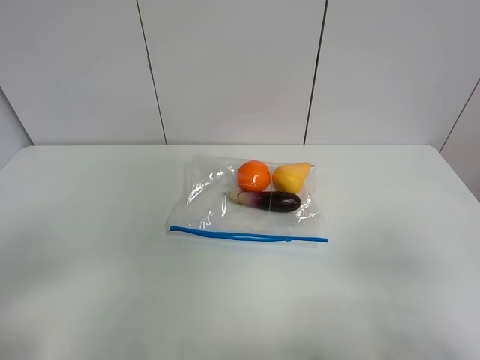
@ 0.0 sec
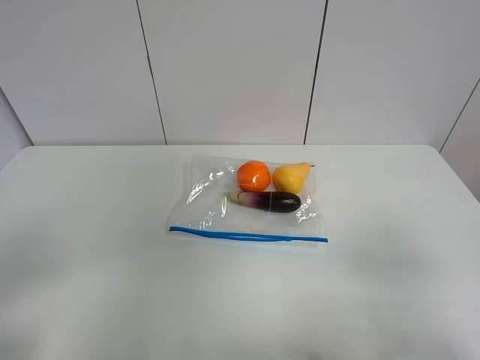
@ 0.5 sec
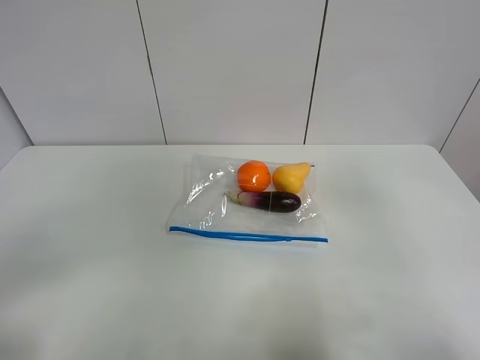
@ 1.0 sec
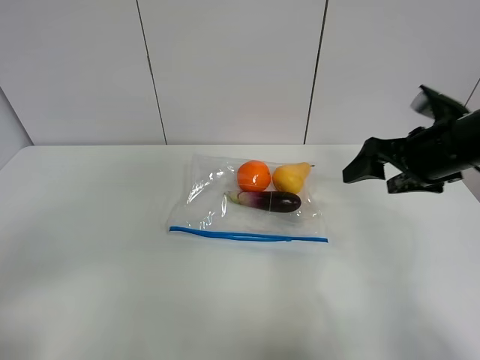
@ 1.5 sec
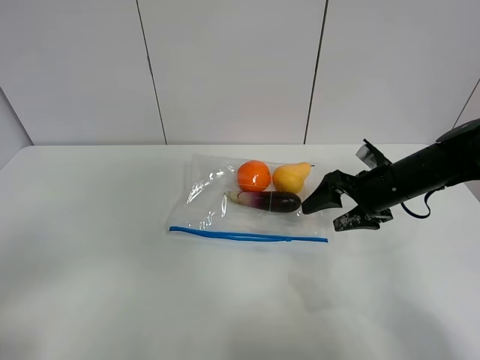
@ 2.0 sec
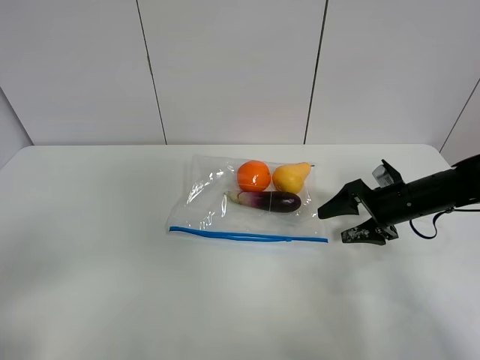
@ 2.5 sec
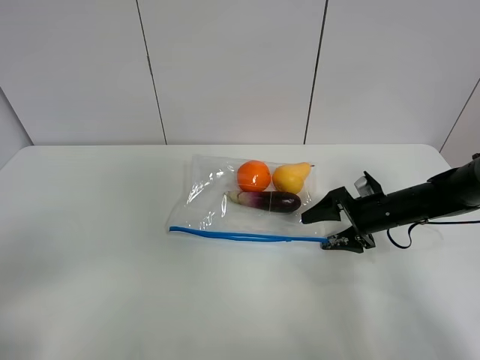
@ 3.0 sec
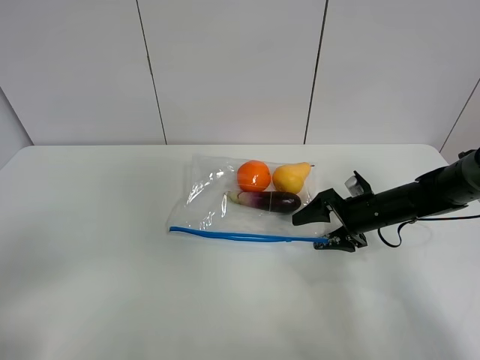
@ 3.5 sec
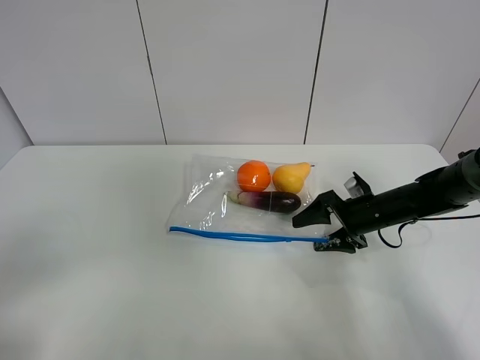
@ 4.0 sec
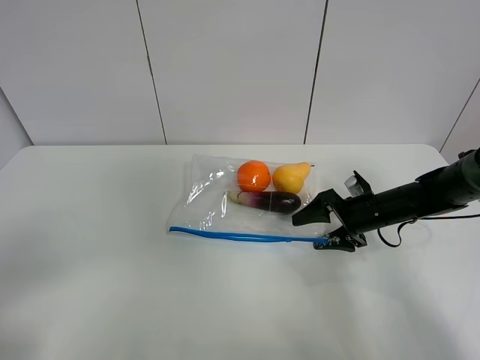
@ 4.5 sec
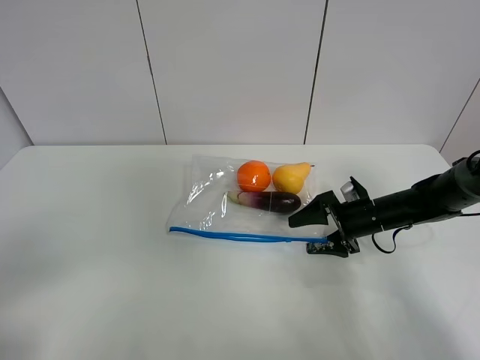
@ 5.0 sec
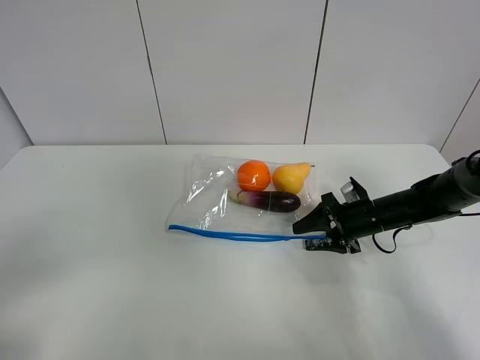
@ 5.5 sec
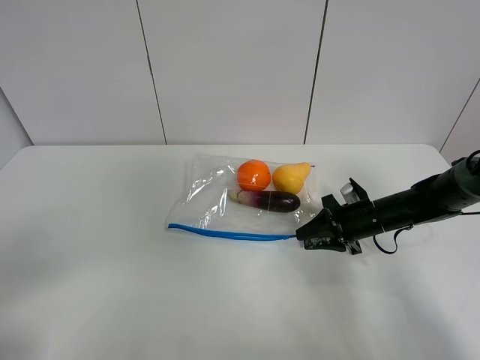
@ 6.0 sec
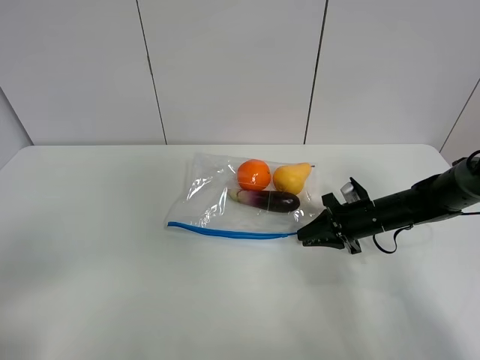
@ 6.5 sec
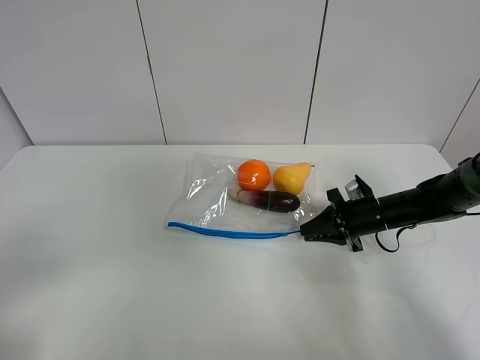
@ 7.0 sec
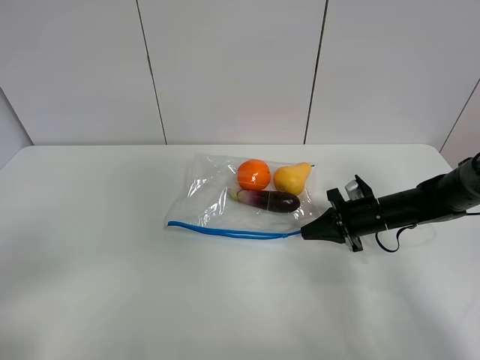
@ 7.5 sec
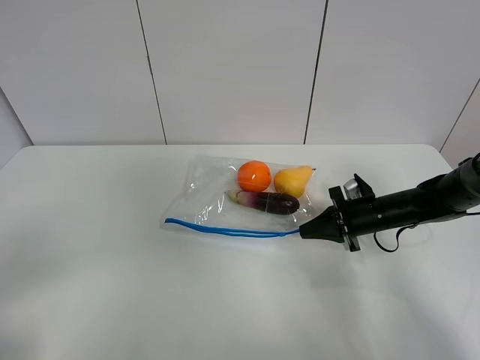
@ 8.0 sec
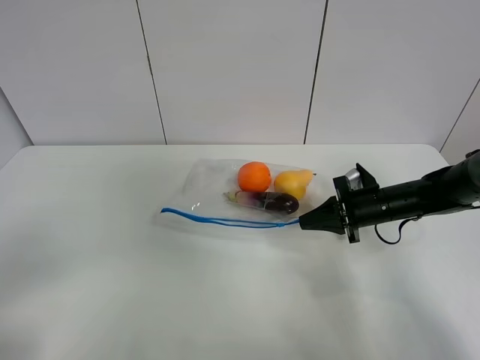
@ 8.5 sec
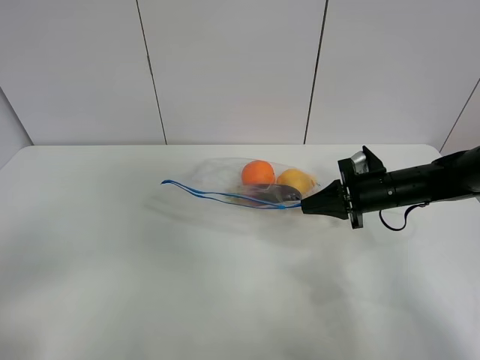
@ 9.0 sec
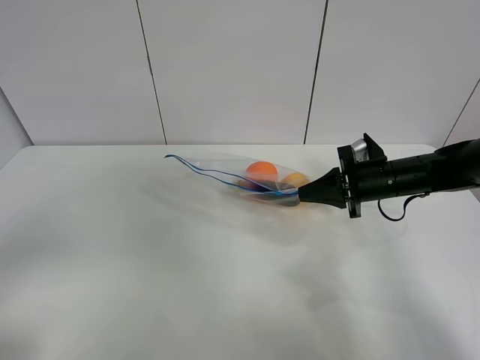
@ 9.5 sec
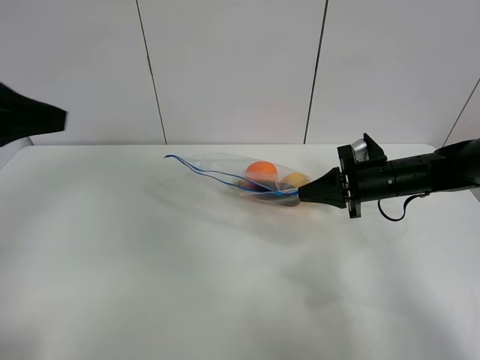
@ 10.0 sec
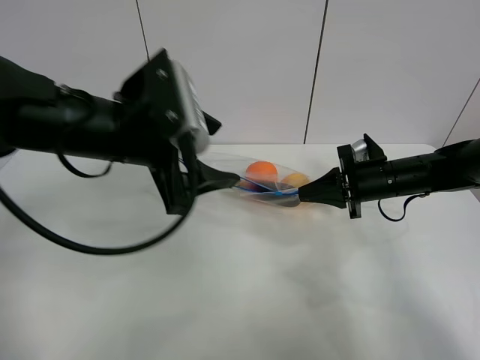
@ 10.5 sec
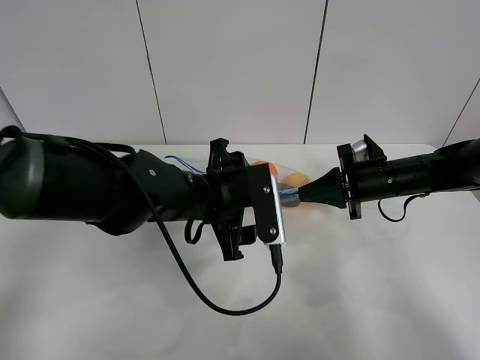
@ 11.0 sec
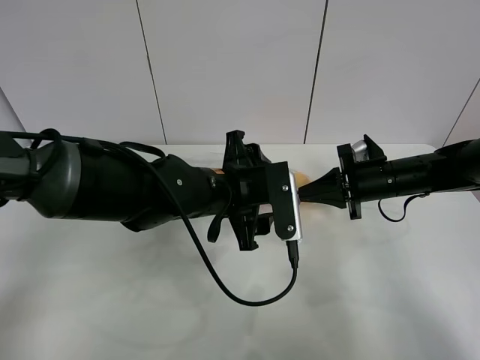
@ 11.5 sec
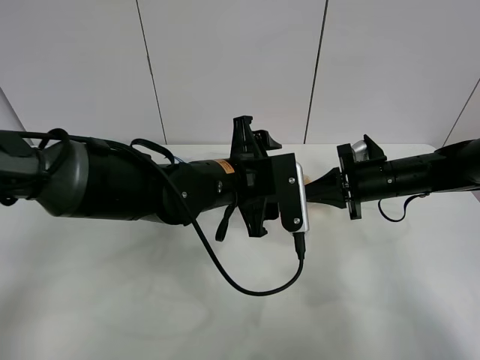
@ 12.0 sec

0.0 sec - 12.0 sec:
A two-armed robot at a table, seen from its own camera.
Step, 0.0 sec - 7.0 sec: Grasp the fruit bag with right gripper.
Step, 7.5 sec - 9.5 sec: Lift the fruit bag with your right gripper.
0.0 sec - 2.0 sec: The right gripper goes approximately 35 cm forward.
2.0 sec - 4.0 sec: The right gripper moves downward, about 10 cm.
4.0 sec - 6.0 sec: The right gripper closes.
6.0 sec - 8.0 sec: The right gripper closes its fingers.
8.0 sec - 10.0 sec: The left gripper shifts some 20 cm forward; the right gripper goes some 5 cm upward.
10.0 sec - 12.0 sec: The left gripper heads to the right and downward, covering approximately 30 cm.

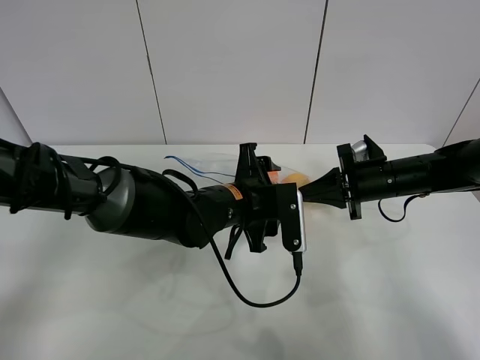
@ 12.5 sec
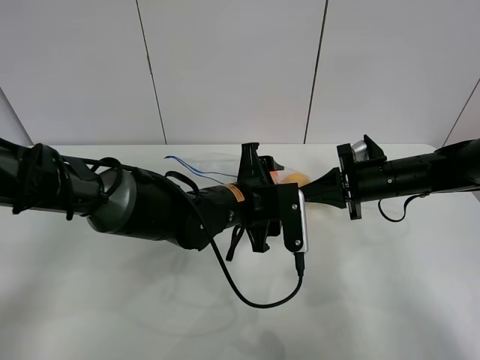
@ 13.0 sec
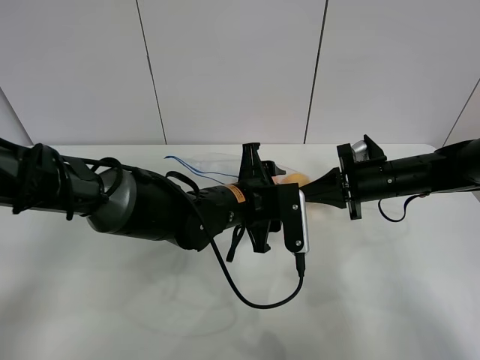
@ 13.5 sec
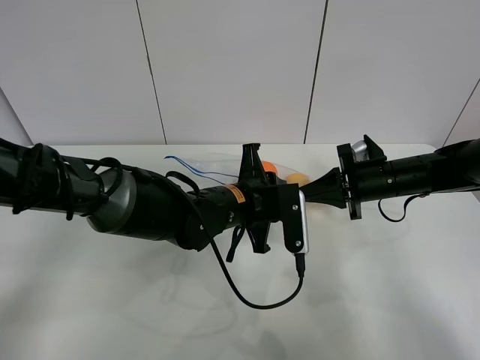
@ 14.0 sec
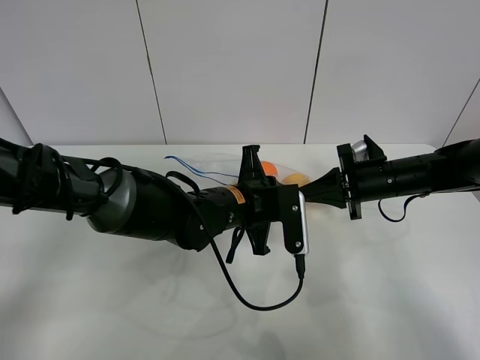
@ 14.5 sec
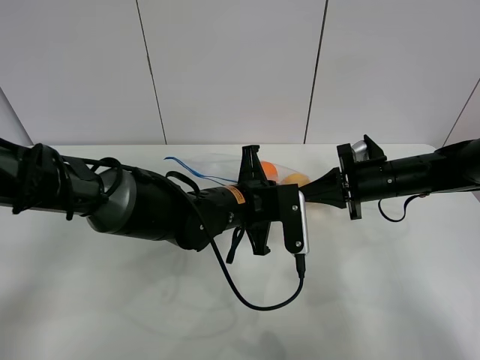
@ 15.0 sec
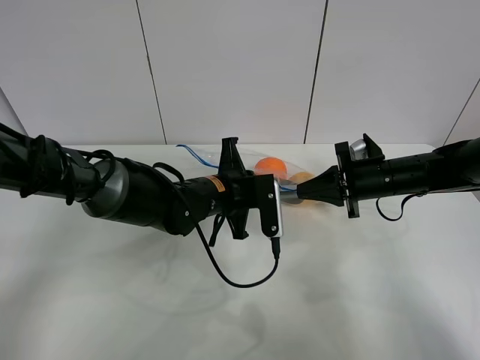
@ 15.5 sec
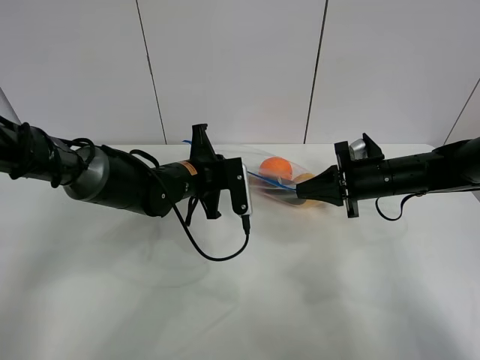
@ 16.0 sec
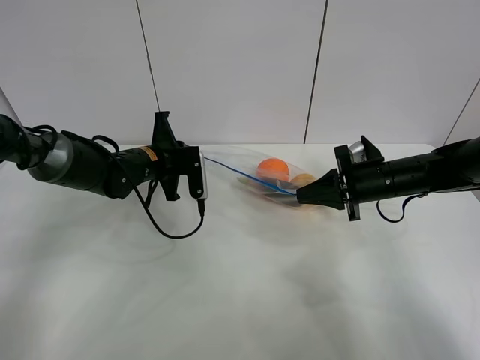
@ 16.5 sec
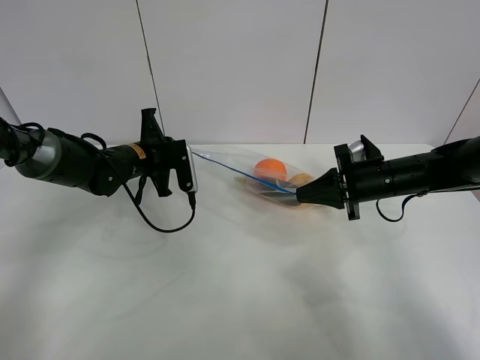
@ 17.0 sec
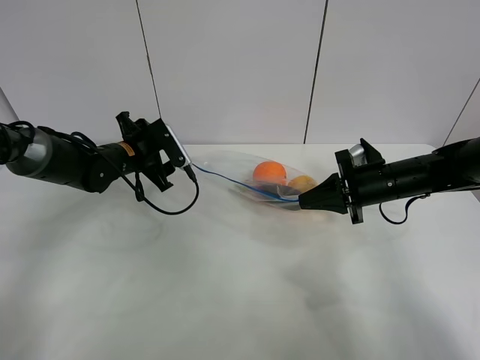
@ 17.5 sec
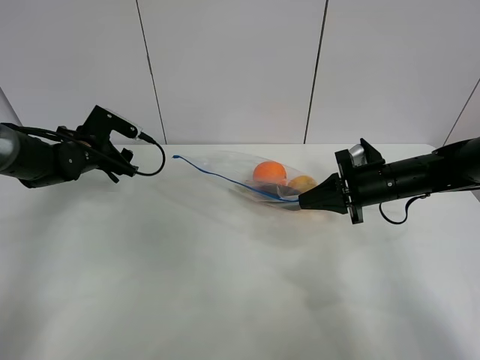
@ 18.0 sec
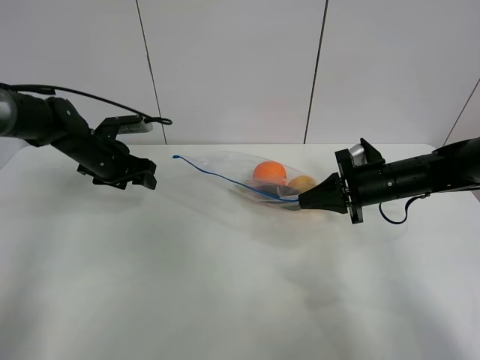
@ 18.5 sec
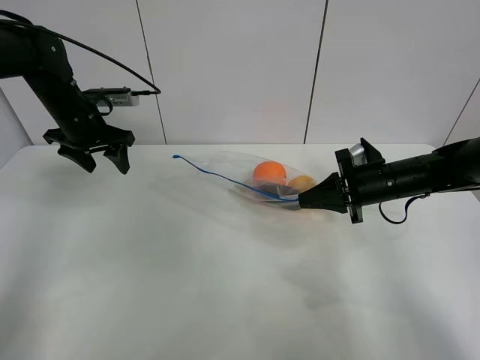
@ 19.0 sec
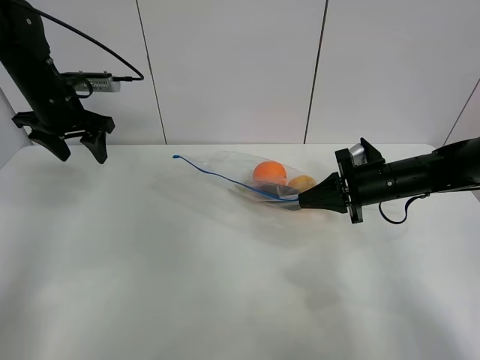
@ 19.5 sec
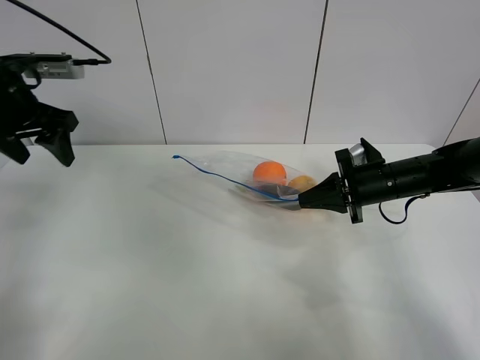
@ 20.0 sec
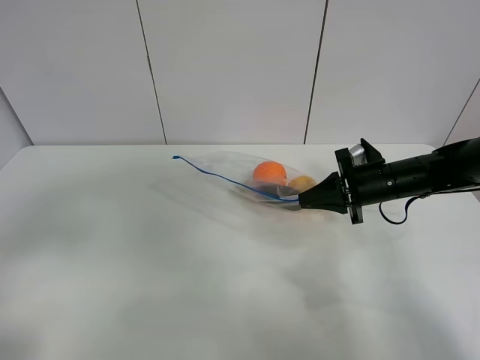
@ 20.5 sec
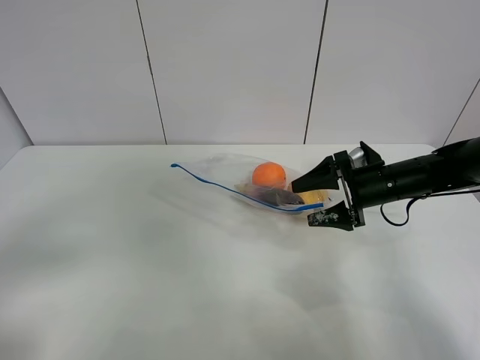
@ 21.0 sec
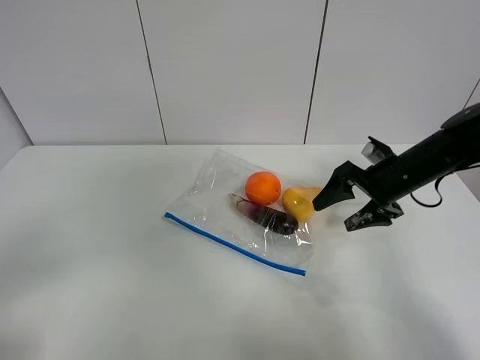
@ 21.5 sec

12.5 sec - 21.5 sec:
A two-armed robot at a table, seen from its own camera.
Step, 12.5 sec - 17.0 sec: Pull the fruit bag with left gripper.
12.5 sec - 14.5 sec: The left gripper closes up.
14.5 sec - 17.0 sec: The left gripper moves to the left and forward, approximately 20 cm.
17.0 sec - 19.5 sec: The left gripper heads upward and to the left, covering roughly 15 cm, and opens.
19.5 sec - 21.5 sec: The right gripper opens up; the left gripper travels backward by roughly 40 cm.

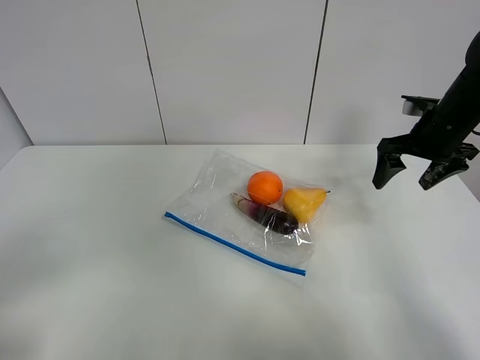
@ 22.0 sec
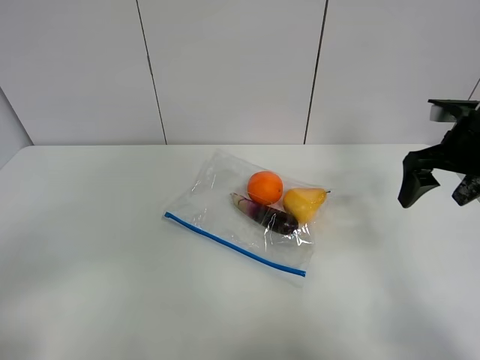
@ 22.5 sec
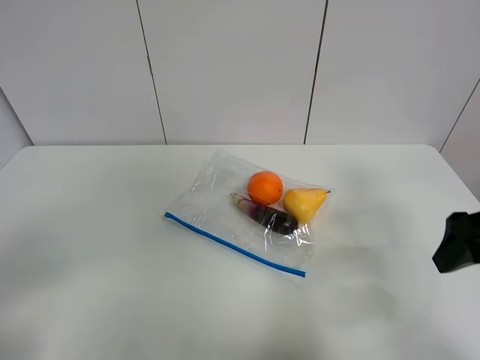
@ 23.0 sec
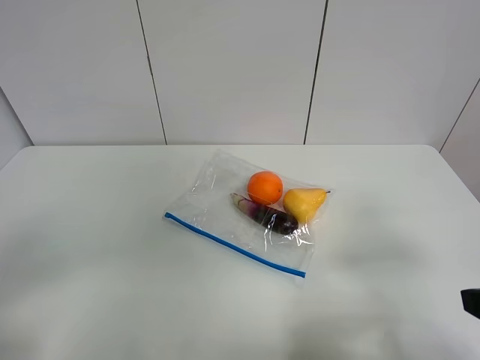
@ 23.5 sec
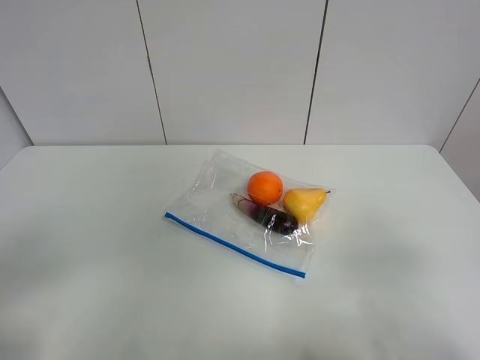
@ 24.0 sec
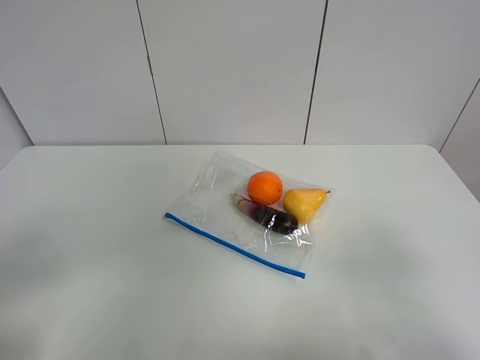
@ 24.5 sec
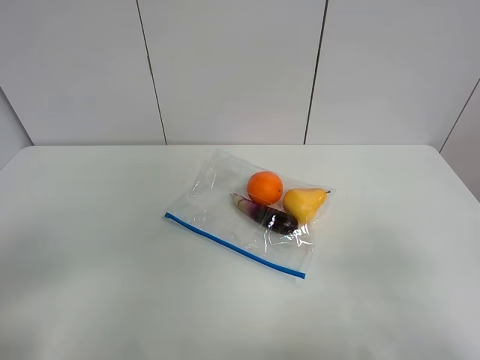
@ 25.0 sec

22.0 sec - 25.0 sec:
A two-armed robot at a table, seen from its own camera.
22.0 sec - 23.5 sec: The right gripper goes about 30 cm backward.

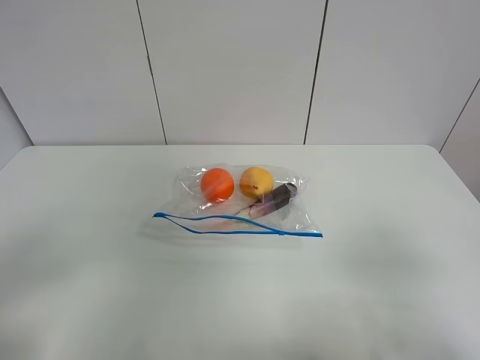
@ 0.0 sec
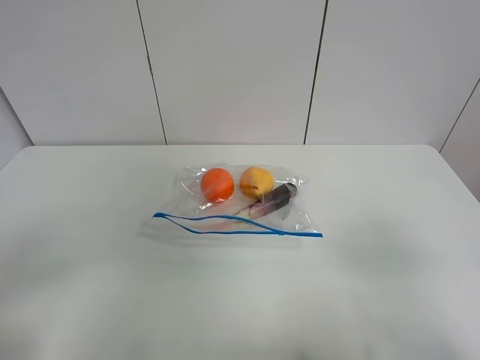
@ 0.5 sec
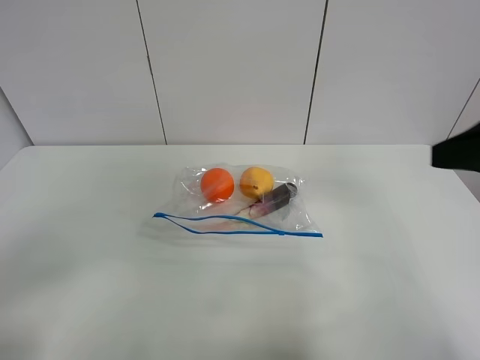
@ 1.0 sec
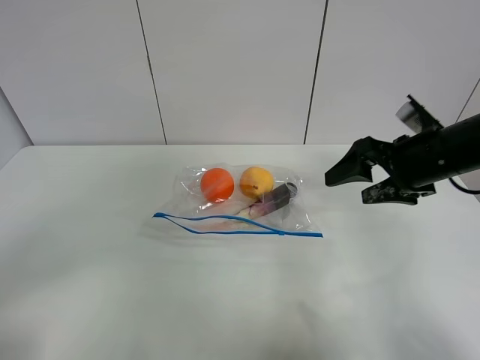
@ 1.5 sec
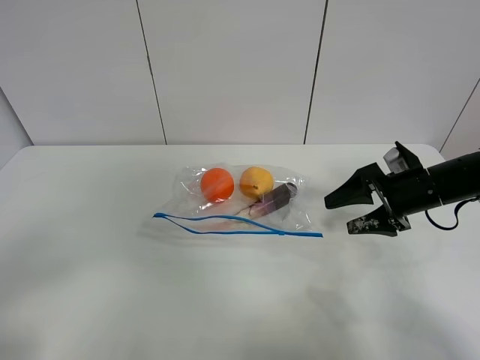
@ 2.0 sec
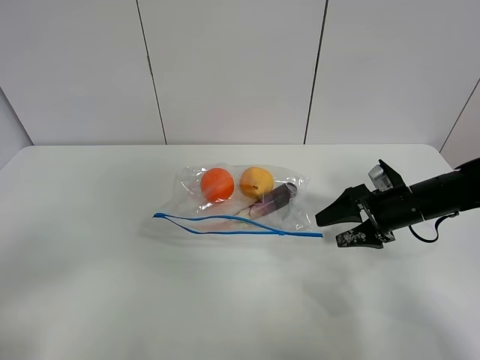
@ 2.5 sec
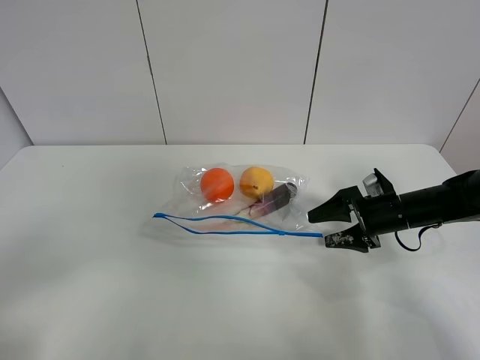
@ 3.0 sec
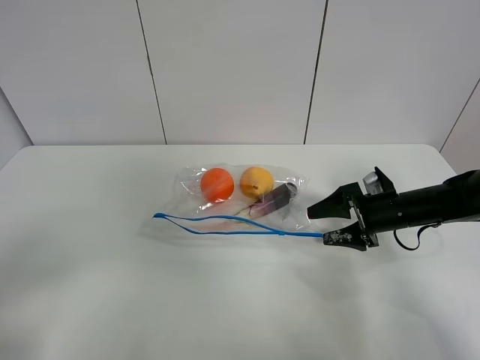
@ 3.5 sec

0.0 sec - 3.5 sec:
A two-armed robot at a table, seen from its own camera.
0.0 sec - 2.0 sec: The right gripper heads forward, covering about 30 cm.
2.0 sec - 3.5 sec: The right gripper shifts roughly 5 cm downward.
